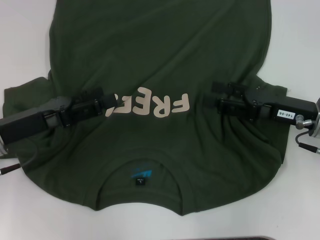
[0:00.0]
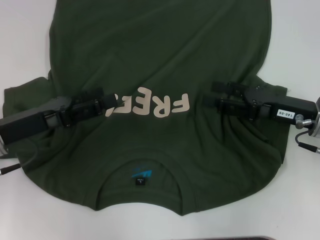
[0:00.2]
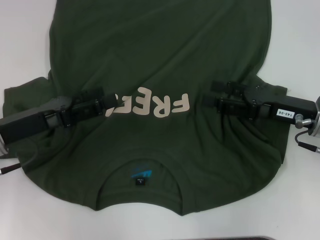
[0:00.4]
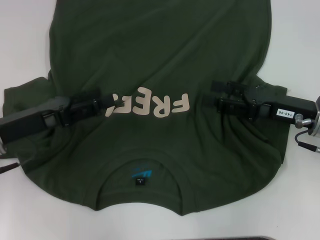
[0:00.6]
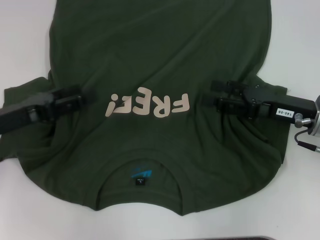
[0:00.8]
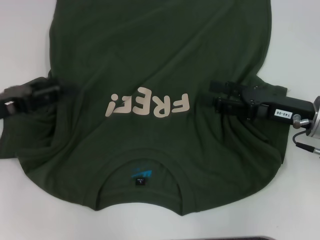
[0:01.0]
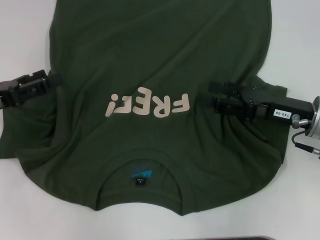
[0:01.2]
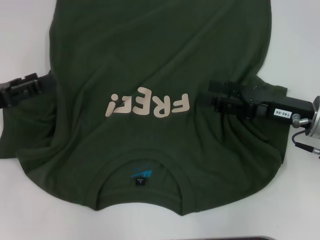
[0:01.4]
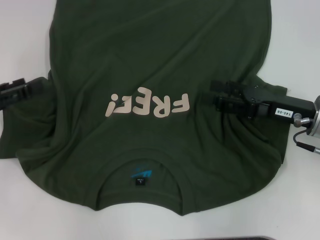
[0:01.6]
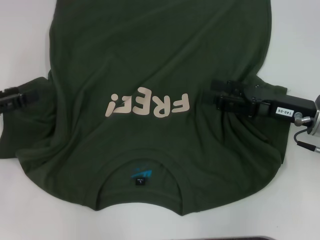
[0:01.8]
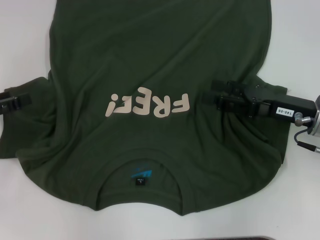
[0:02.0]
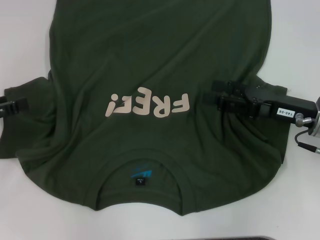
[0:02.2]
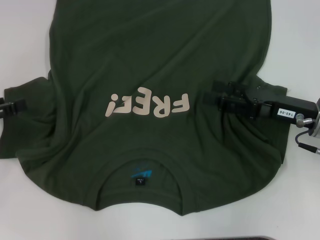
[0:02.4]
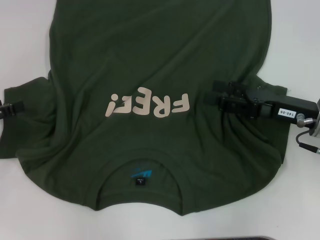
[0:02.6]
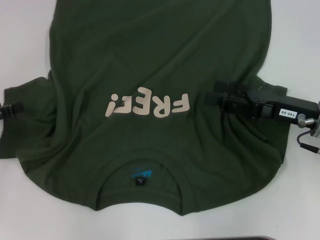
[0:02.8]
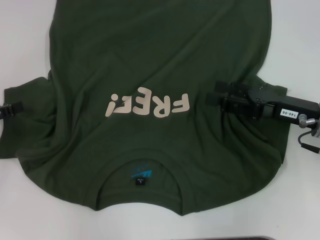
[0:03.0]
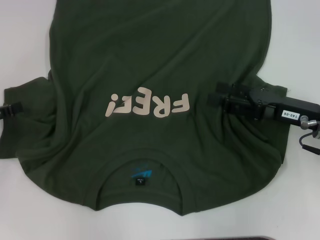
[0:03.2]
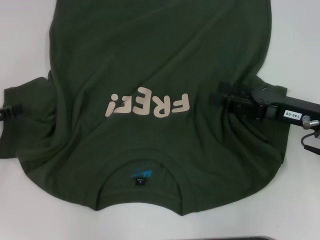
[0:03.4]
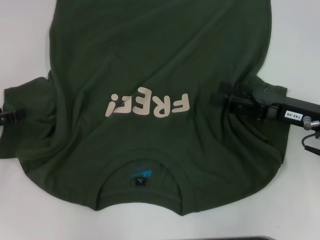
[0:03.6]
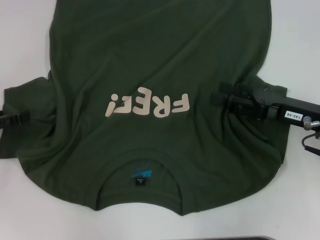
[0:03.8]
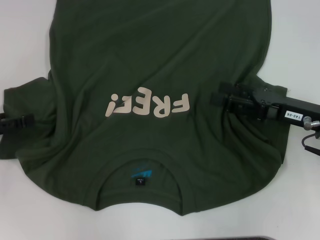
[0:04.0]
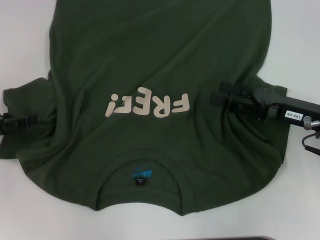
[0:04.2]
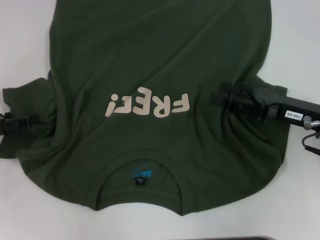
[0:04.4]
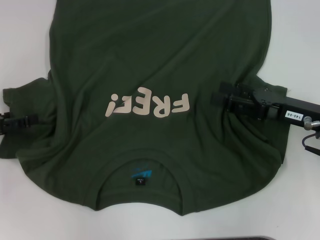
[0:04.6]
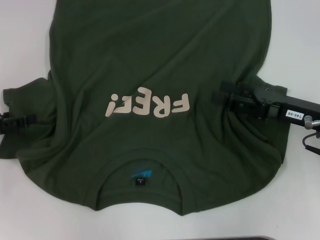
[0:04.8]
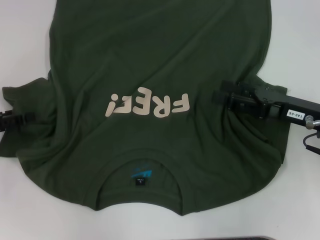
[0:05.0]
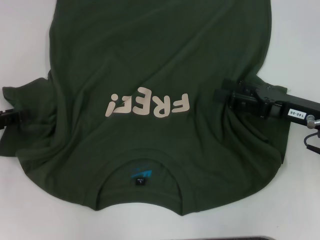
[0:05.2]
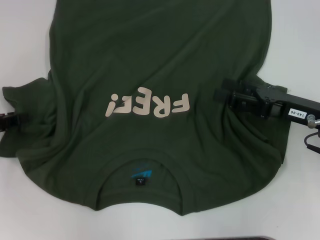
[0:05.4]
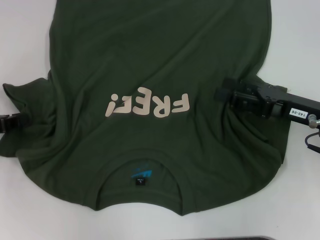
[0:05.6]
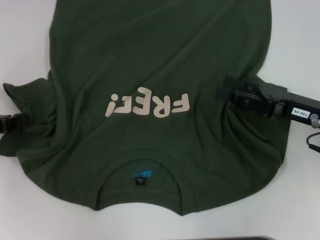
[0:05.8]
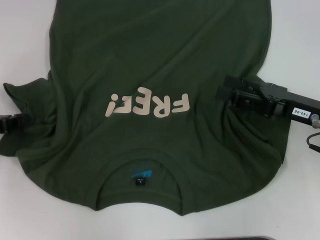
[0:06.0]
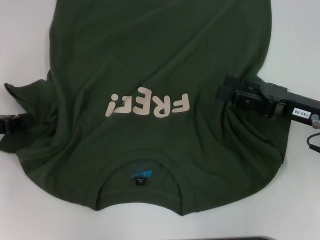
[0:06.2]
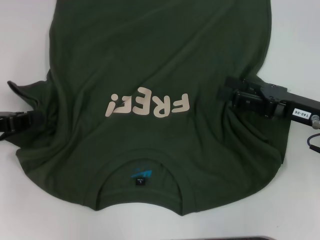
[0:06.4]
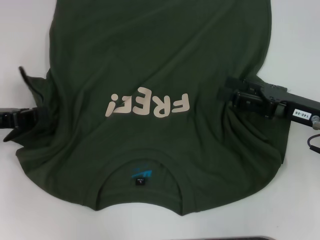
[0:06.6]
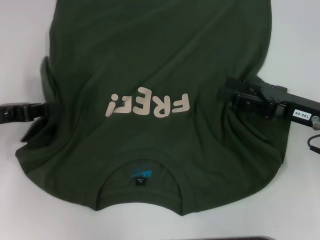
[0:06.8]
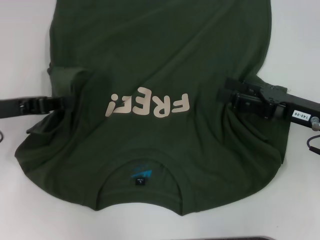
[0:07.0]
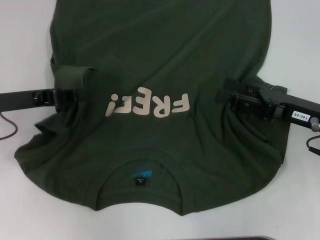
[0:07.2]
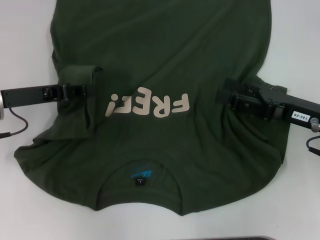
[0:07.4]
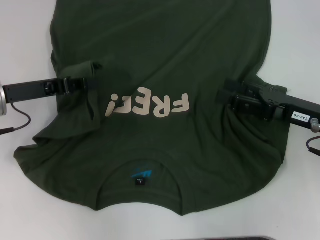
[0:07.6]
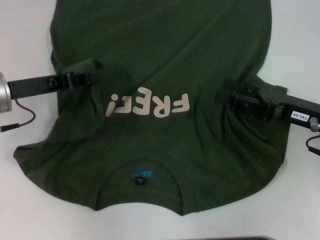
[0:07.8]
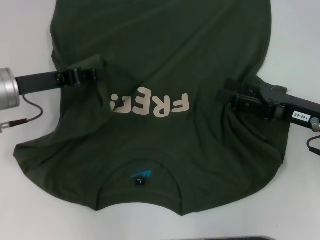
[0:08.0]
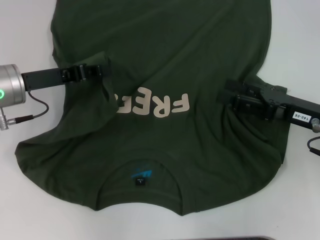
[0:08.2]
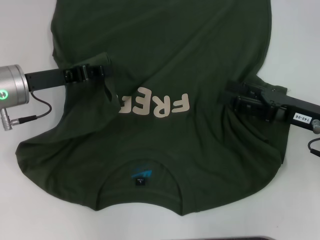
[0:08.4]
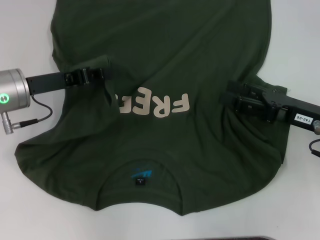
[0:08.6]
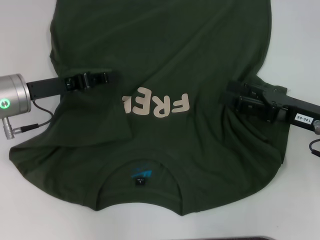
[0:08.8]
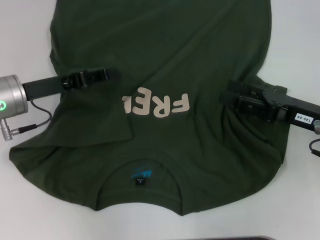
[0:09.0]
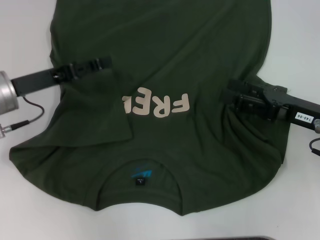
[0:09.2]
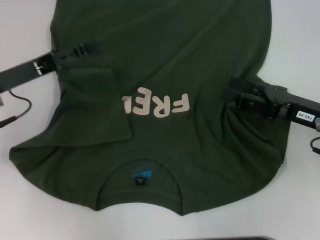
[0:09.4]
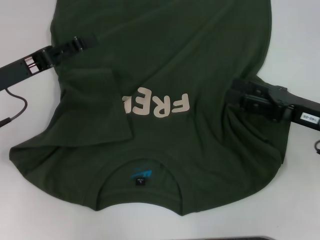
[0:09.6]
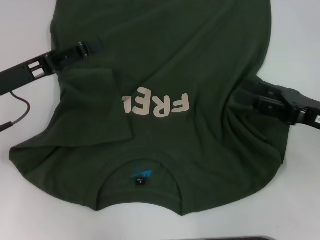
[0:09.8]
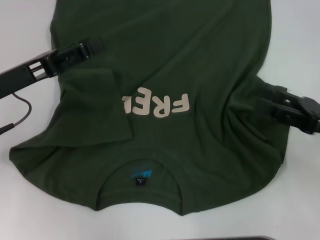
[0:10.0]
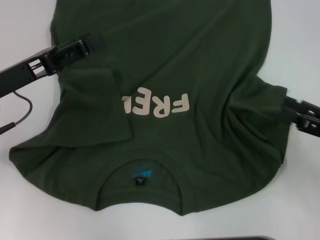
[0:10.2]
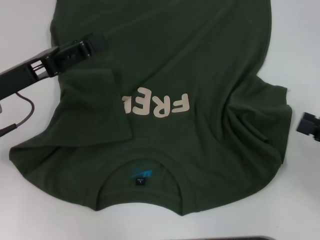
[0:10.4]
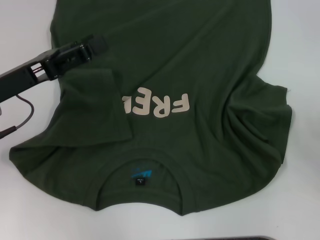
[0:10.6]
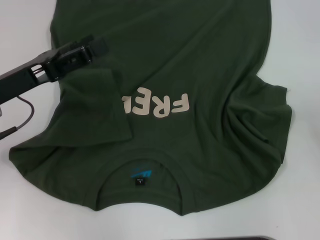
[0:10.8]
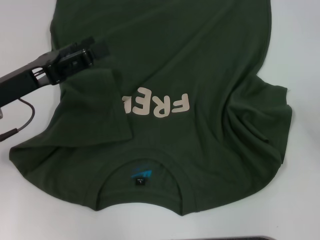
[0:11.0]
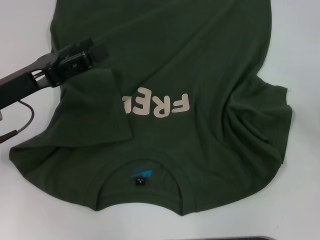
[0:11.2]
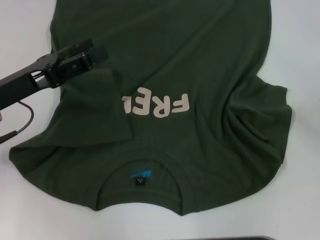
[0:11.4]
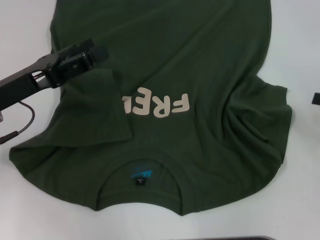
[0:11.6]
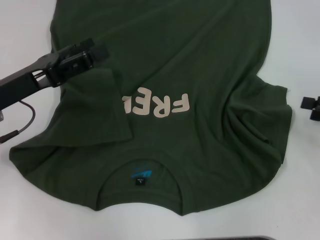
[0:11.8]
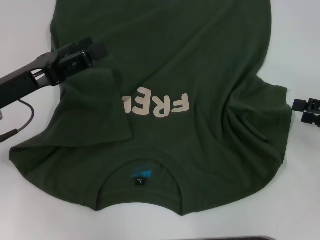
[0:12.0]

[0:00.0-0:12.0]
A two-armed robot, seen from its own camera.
Step, 0:00.0 to 0:08.8: Fold the bottom left sleeve with your left hand.
0:00.0 to 0:01.6: The left gripper goes approximately 10 cm to the left.
0:01.6 to 0:04.4: The grippers make only small movements.
0:04.4 to 0:06.0: The left gripper closes up.
0:06.0 to 0:07.6: The left gripper heads to the right, covering approximately 10 cm.
0:07.6 to 0:09.0: There are only small adjustments of the grippers.
0:09.0 to 0:10.4: The left gripper opens its fingers. Meanwhile the right gripper shifts about 10 cm to the right and backward.
0:10.4 to 0:12.0: The right gripper moves forward, approximately 5 cm.

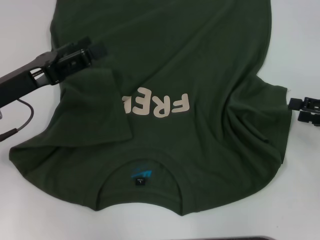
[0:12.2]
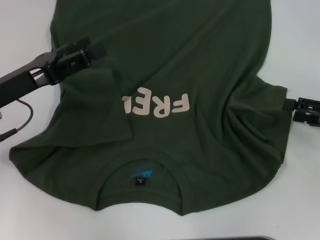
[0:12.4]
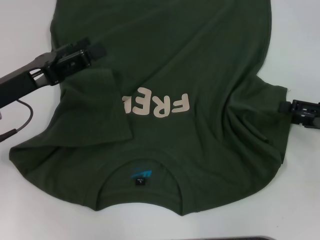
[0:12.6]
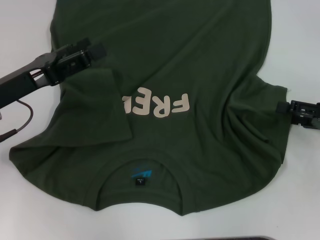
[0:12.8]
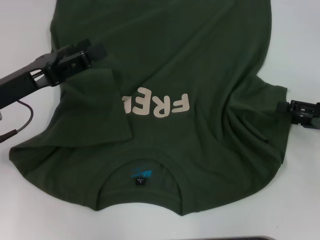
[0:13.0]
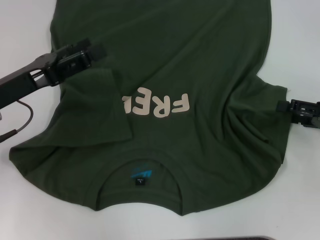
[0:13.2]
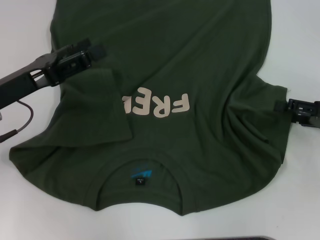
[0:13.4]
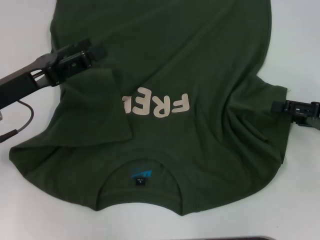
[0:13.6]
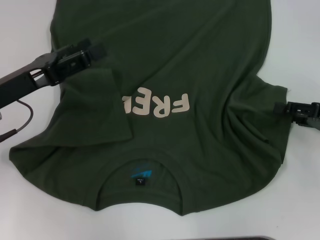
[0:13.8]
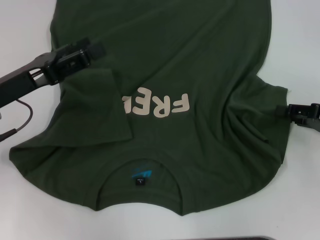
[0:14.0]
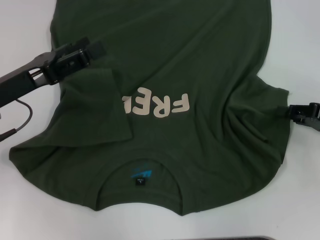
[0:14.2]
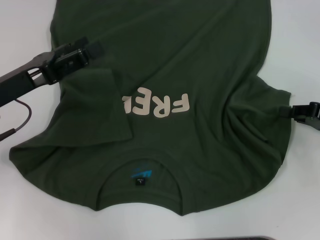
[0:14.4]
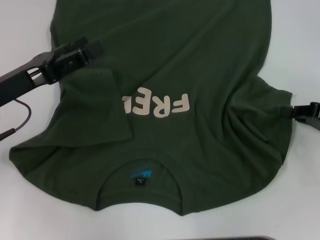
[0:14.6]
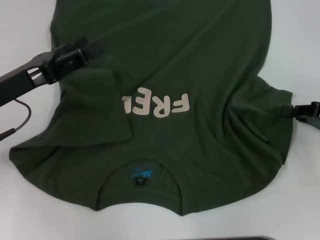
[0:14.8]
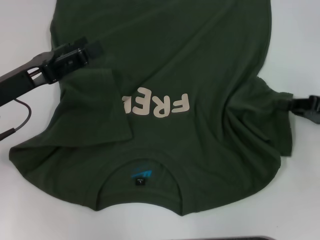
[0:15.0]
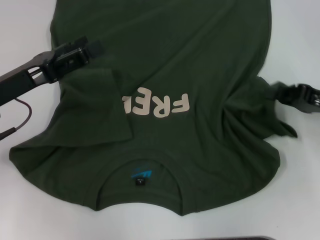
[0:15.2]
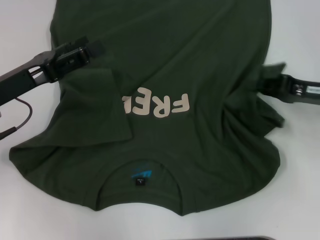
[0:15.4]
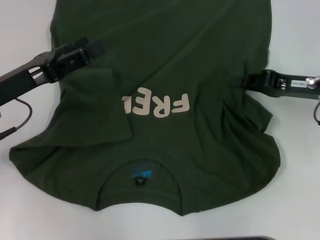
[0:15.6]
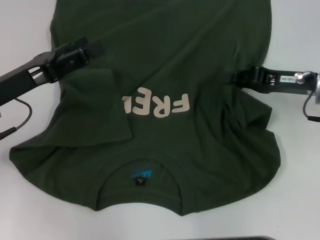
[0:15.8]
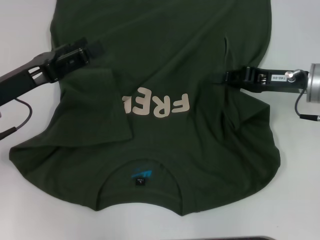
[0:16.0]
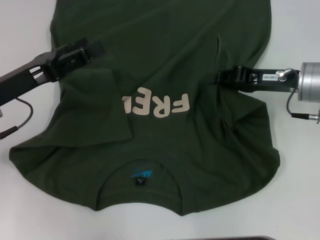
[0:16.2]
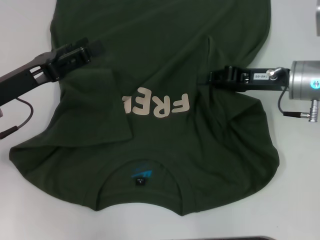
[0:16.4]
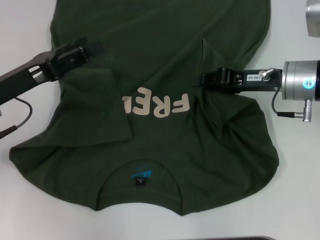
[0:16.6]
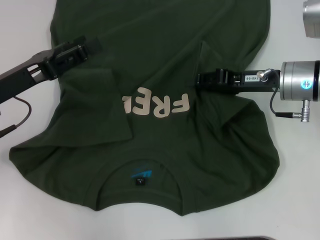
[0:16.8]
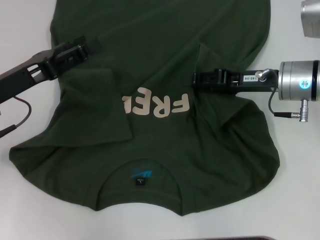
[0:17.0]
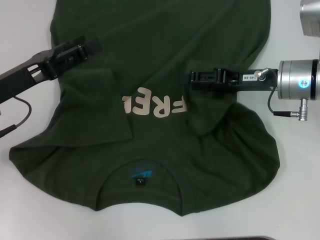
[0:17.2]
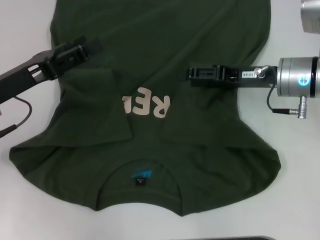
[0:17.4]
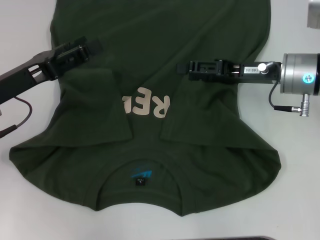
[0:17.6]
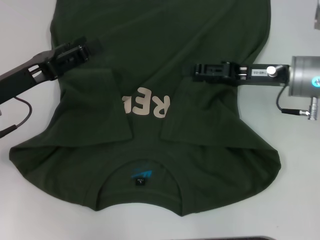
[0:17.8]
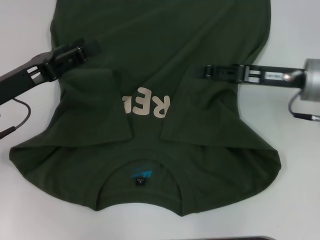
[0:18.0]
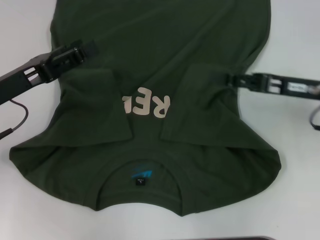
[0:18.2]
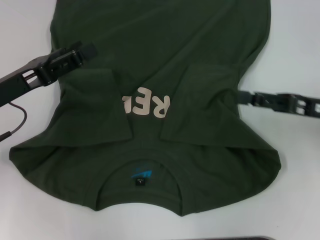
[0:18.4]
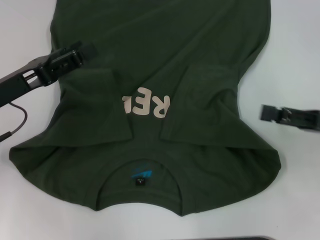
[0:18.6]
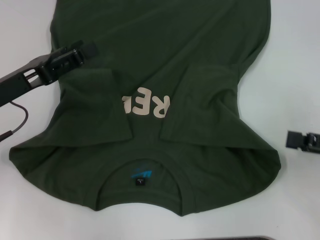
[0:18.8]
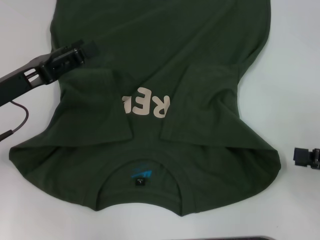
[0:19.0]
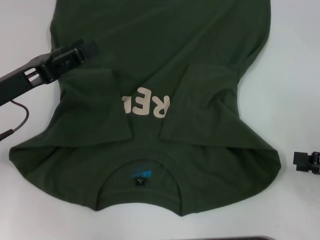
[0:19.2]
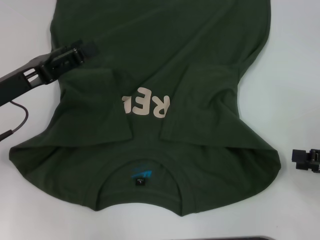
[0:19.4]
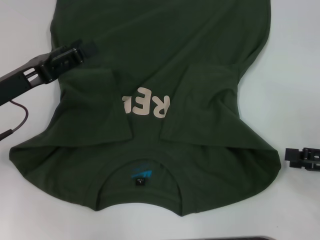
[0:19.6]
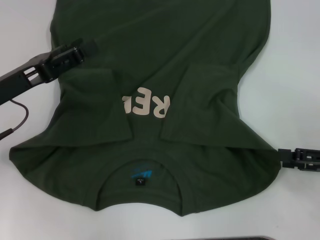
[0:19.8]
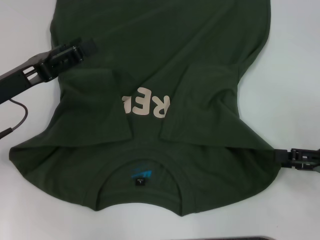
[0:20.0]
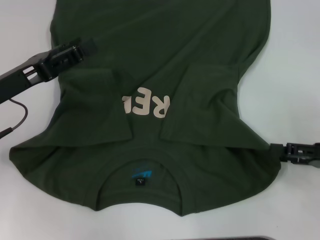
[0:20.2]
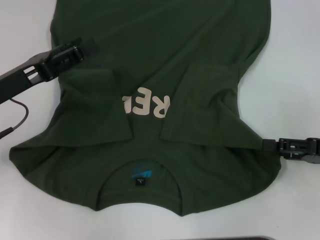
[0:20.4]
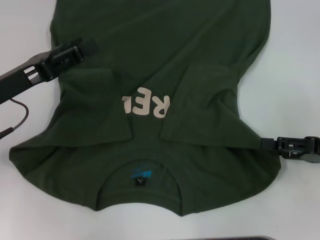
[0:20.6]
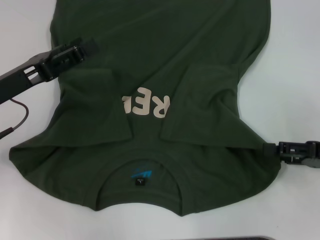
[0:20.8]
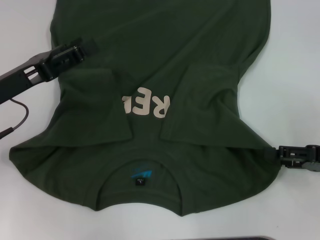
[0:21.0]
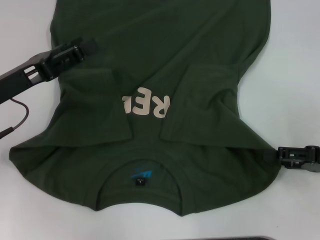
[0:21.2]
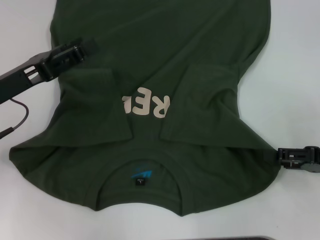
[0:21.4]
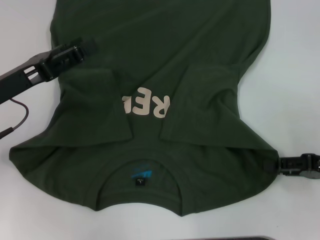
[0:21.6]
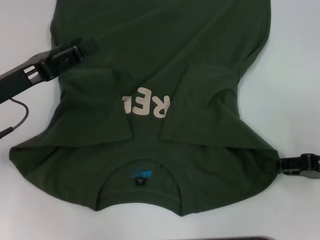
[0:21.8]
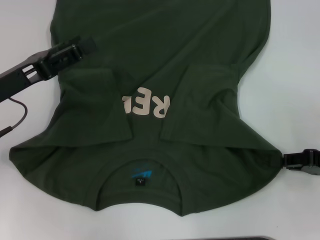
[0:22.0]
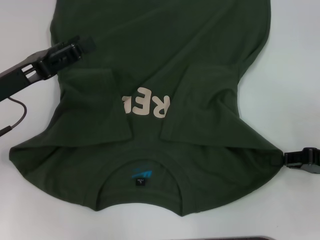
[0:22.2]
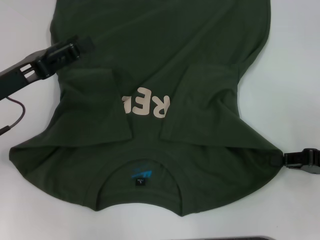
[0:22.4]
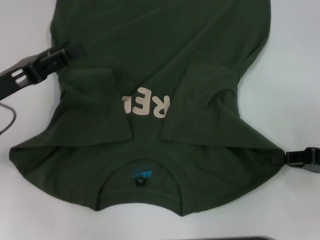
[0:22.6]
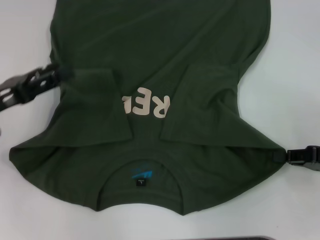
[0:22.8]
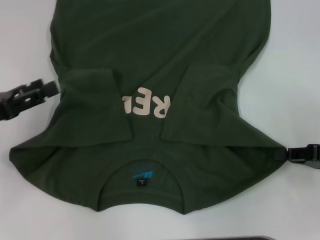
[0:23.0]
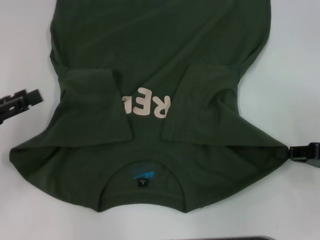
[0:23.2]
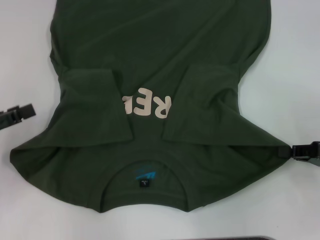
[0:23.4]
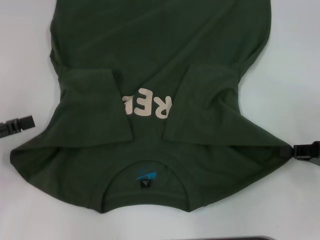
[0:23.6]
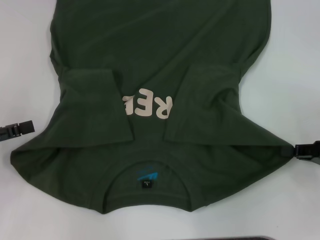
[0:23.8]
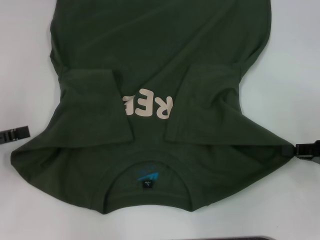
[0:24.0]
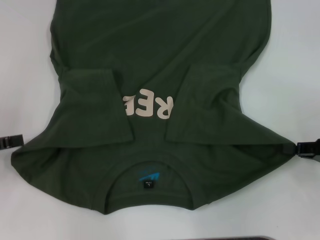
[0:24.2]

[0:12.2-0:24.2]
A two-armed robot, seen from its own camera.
Step, 0:12.2 to 0:17.4: Fold the bottom right sleeve with your right hand.
Step, 0:17.6 to 0:22.4: Grab the bottom right corner with your right hand.
0:12.2 to 0:13.8: The grippers move only a little.
0:13.8 to 0:15.2: The right gripper closes up.
0:15.2 to 0:16.6: The right gripper shifts about 10 cm to the left and forward.
0:16.6 to 0:18.2: The right gripper moves roughly 5 cm, and opens.
0:18.2 to 0:19.8: The right gripper goes approximately 15 cm backward and to the right.
0:19.8 to 0:21.2: The grippers make only small movements.
0:21.2 to 0:22.6: The right gripper closes up.
0:22.6 to 0:24.2: The left gripper travels to the left by about 10 cm.
